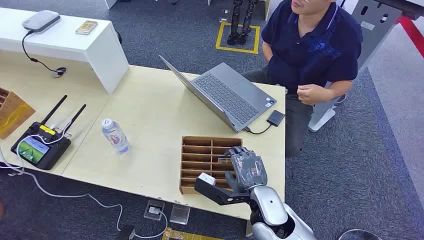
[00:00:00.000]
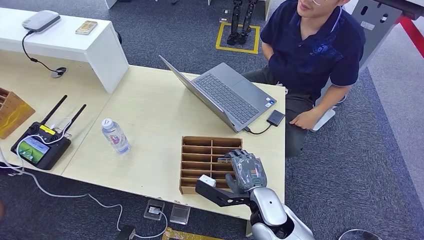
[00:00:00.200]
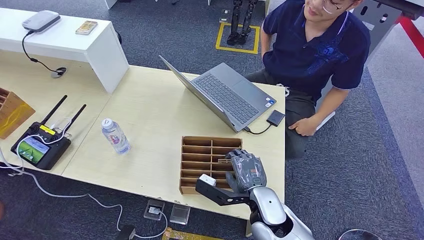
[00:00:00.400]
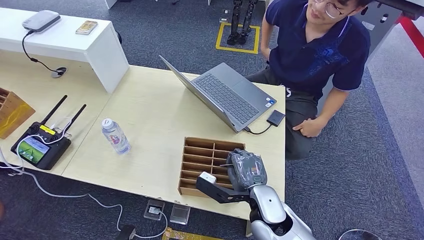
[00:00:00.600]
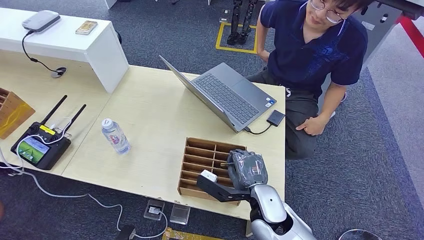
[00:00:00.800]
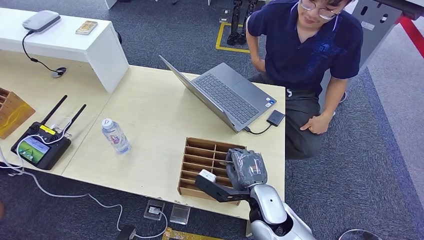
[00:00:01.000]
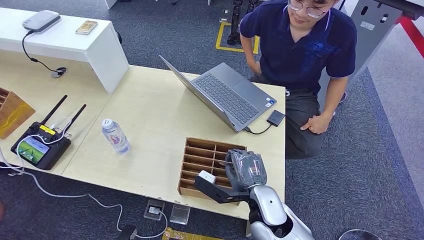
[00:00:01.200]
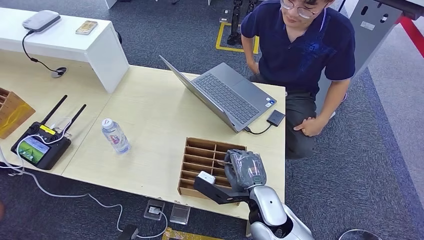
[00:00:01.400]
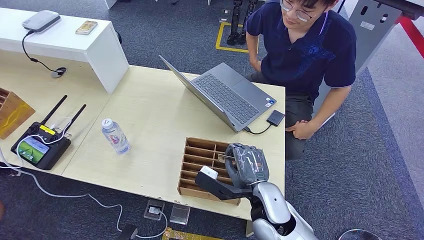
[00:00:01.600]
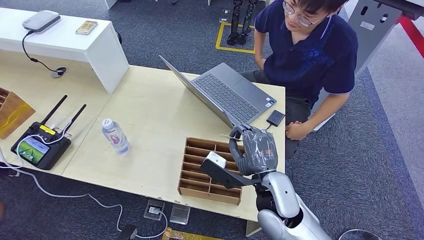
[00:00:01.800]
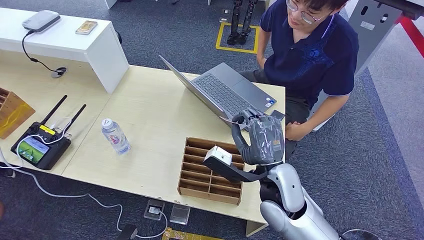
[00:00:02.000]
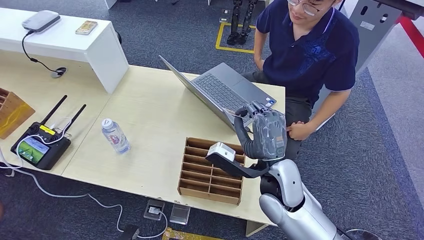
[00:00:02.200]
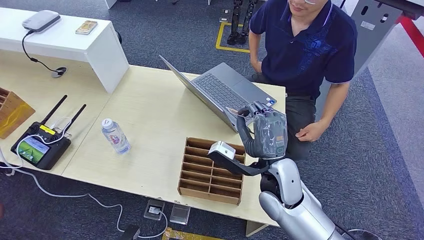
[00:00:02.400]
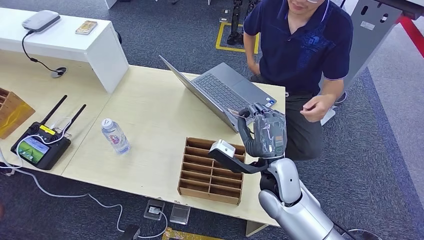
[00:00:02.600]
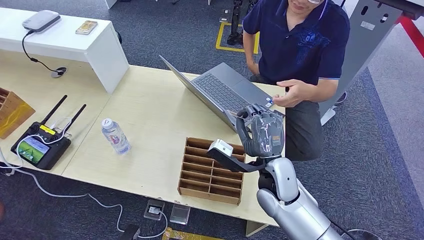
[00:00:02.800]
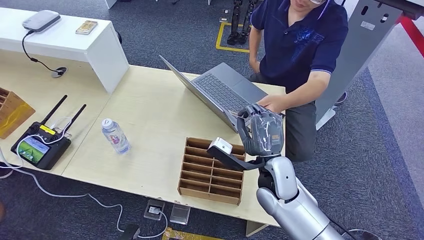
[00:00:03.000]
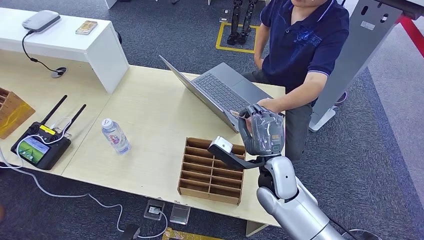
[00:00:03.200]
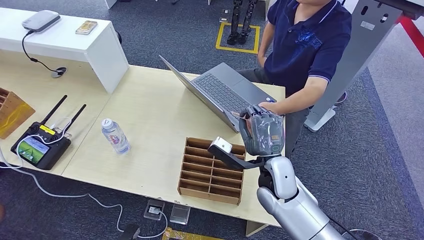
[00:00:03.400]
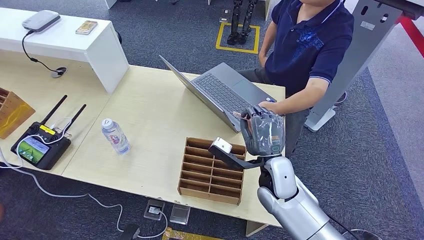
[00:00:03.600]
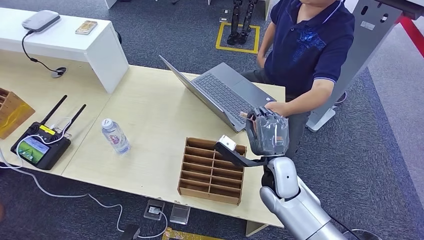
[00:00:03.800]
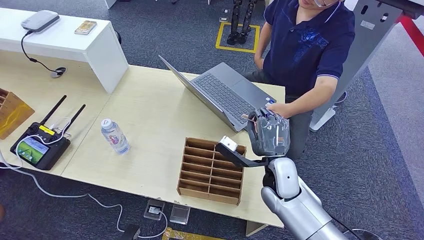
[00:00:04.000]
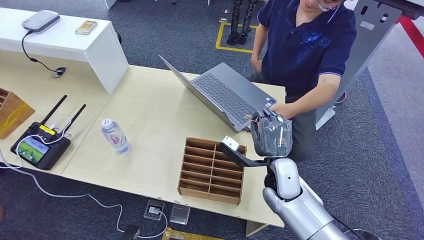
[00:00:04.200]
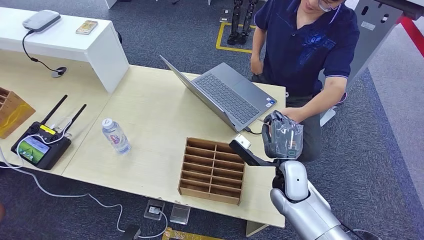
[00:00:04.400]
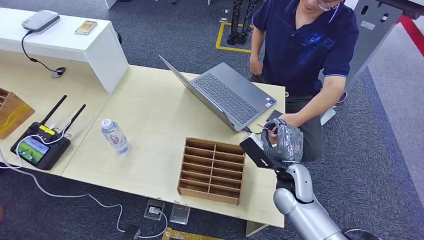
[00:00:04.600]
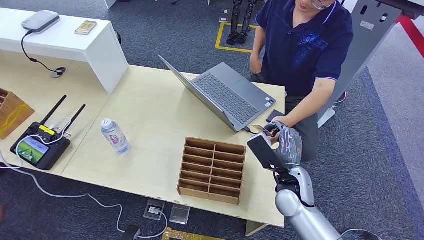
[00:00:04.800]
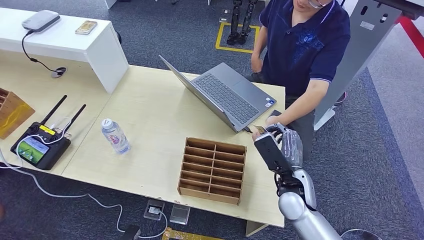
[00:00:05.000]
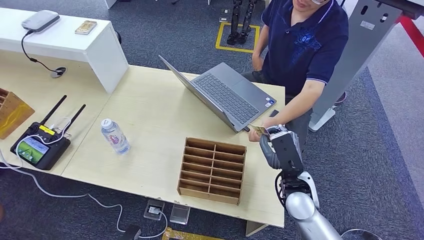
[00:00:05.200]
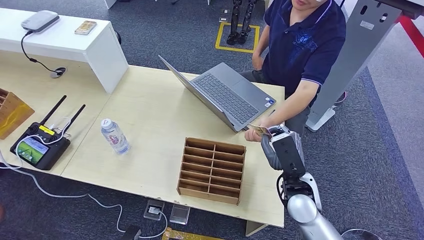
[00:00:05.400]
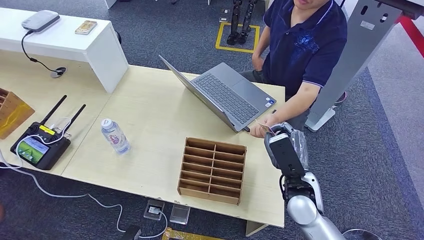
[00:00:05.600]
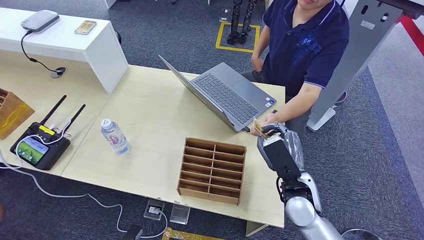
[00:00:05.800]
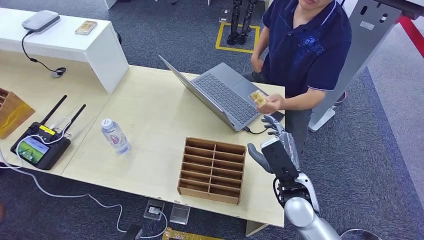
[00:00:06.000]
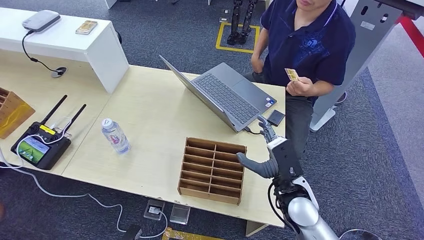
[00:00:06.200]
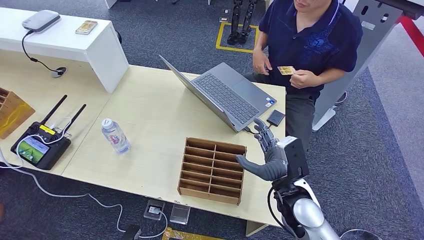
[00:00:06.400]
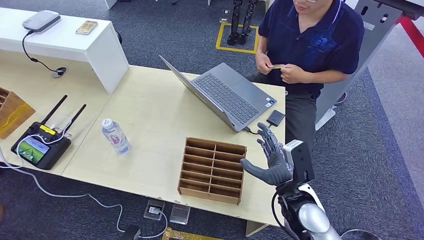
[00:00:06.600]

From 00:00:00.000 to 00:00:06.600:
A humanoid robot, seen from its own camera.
Task of the whole recording: Pick up the card and hand it over to the target person.
Step, from 00:00:00.000 to 00:00:02.000: Pick up the key card from the card box.
Step, from 00:00:03.200 to 00:00:06.600: Hand the key card to the target.
From 00:00:01.600 to 00:00:03.200: The right hand goes some 5 cm forward.
From 00:00:03.200 to 00:00:05.000: The right hand is displaced to the right by approximately 5 cm.
From 00:00:05.000 to 00:00:06.600: The right hand shifts roughly 5 cm backward.

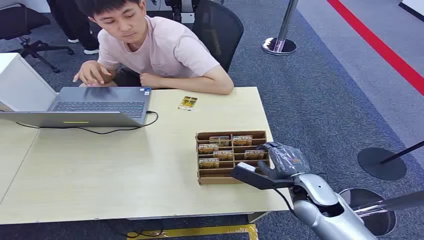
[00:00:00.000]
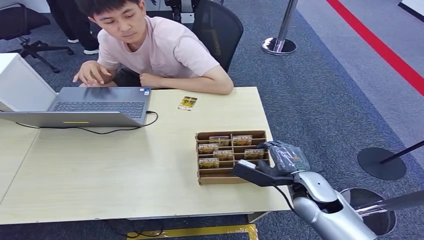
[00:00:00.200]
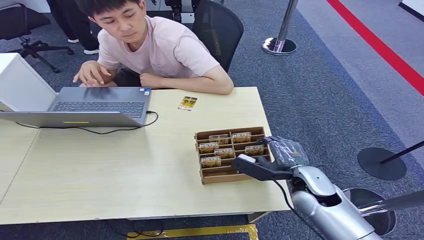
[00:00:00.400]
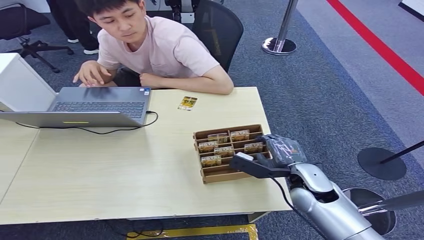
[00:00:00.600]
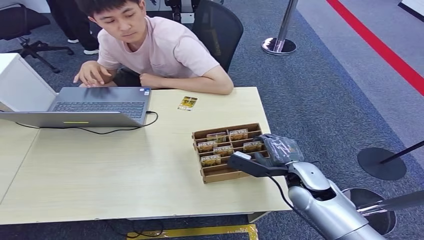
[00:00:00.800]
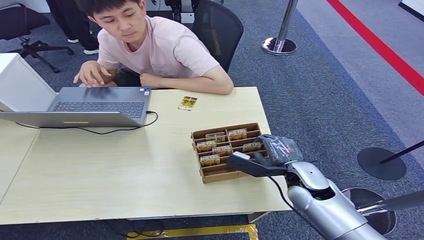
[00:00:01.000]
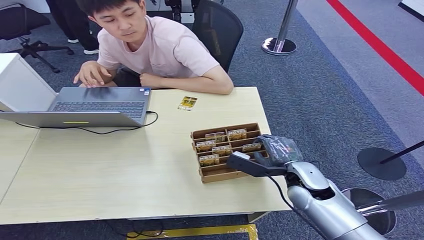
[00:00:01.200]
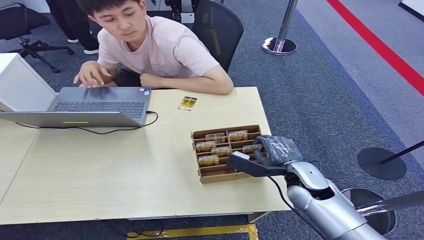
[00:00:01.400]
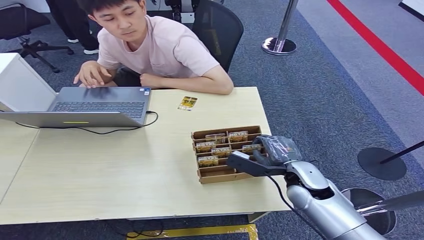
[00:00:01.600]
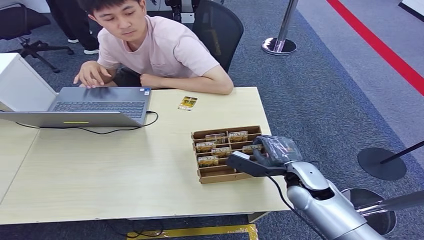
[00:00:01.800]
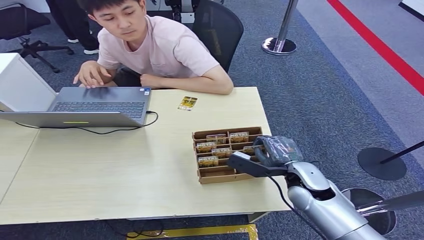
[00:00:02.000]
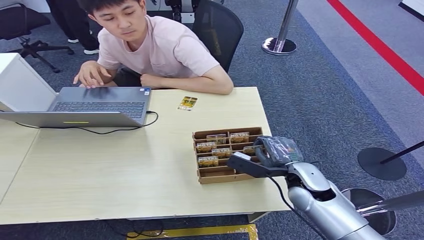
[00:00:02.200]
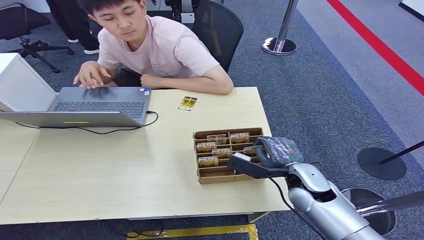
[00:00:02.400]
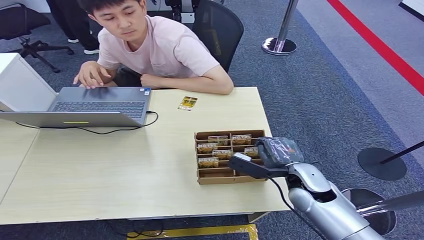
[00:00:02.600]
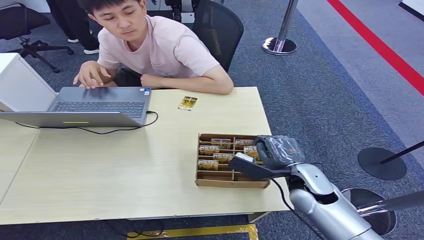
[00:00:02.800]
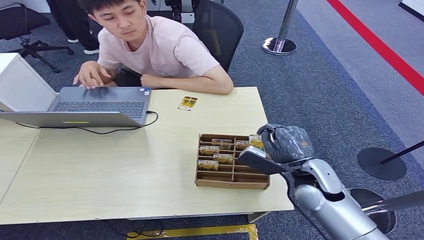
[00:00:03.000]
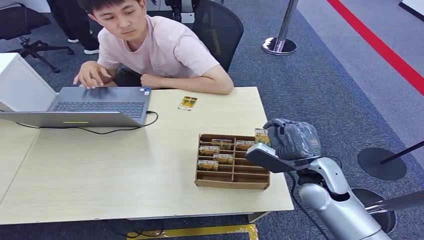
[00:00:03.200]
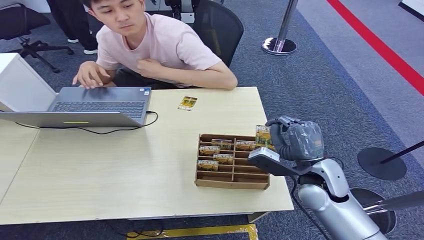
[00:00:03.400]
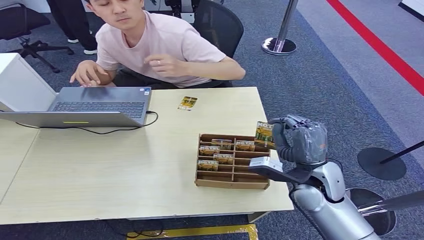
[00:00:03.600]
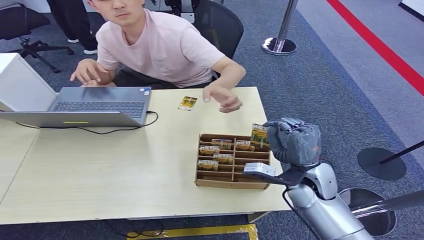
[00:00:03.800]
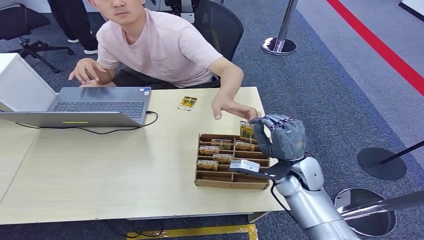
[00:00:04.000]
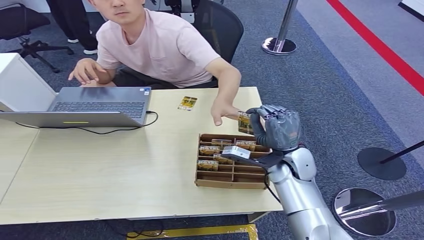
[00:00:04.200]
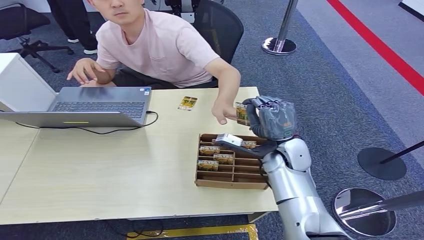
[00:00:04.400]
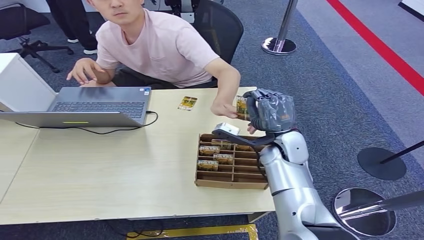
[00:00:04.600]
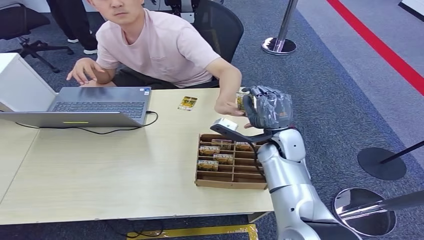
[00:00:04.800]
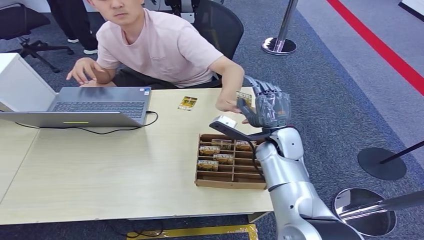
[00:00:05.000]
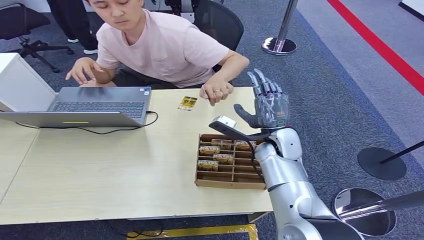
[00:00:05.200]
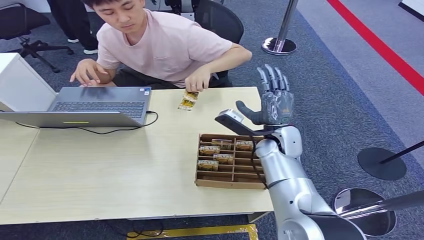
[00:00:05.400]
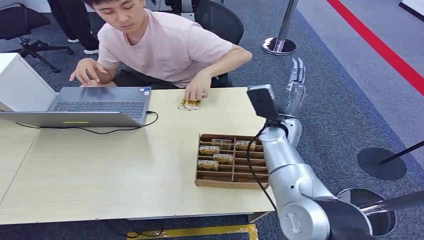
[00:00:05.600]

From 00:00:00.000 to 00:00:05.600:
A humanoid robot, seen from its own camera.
Task of the whole recording: Pick up the card and hand it over to the target person.
Step, from 00:00:00.000 to 00:00:04.000: Pick up the key card from the card box.
Step, from 00:00:04.200 to 00:00:05.600: Hand the key card to the target.
From 00:00:02.800 to 00:00:04.200: The right hand is displaced forward by some 10 cm.
From 00:00:04.200 to 00:00:05.600: The right hand shifts about 10 cm forward and upward.
